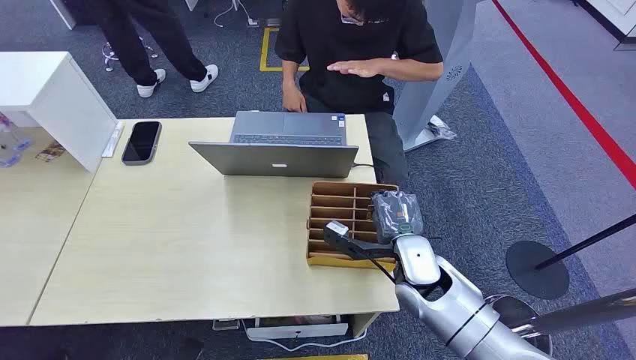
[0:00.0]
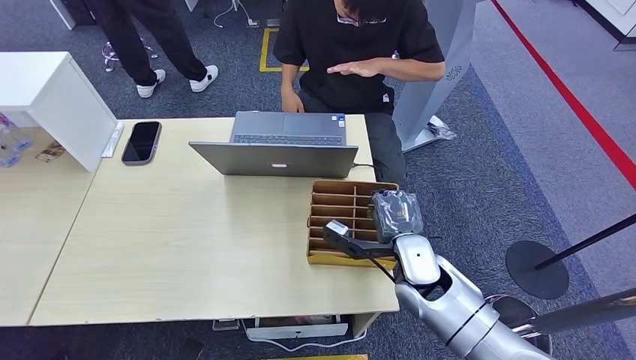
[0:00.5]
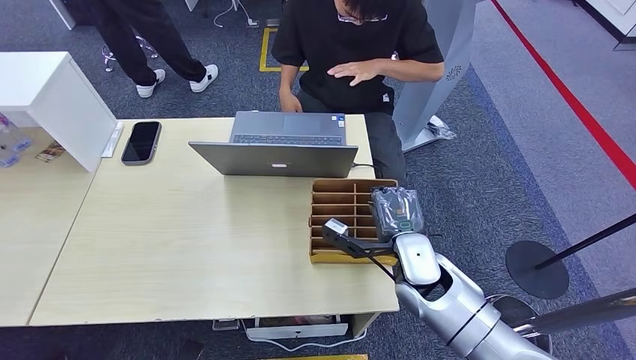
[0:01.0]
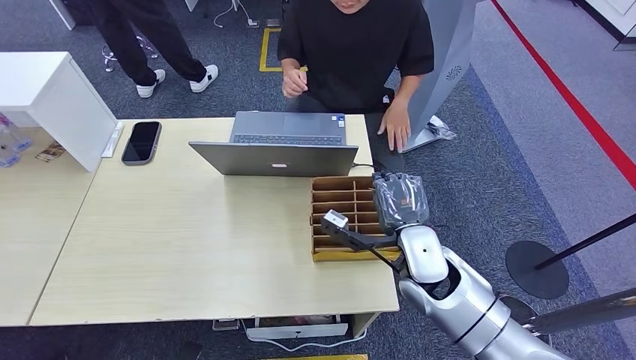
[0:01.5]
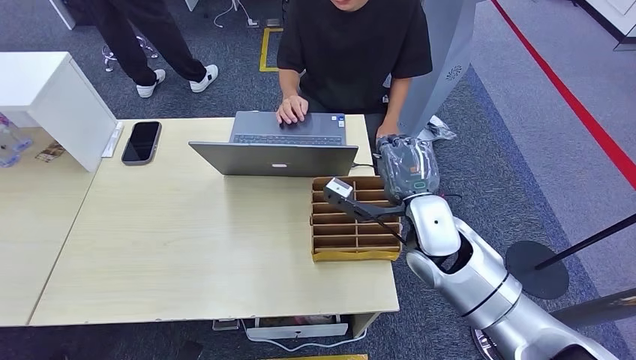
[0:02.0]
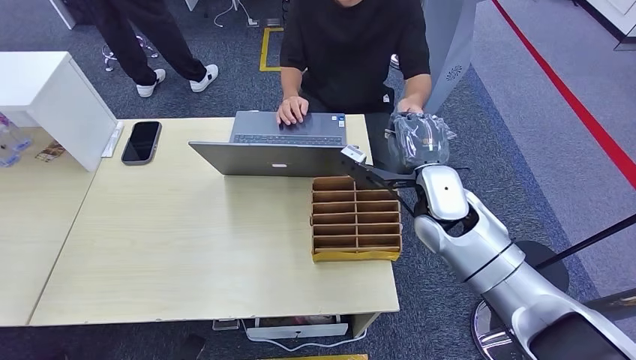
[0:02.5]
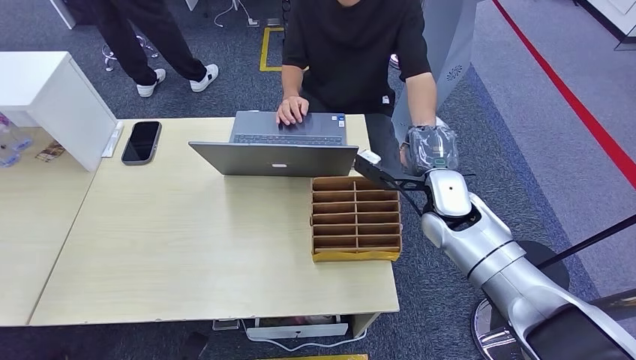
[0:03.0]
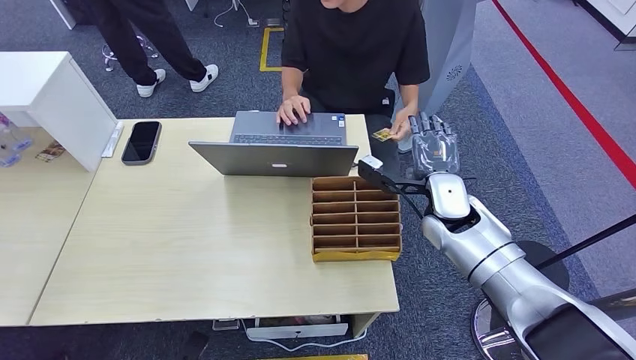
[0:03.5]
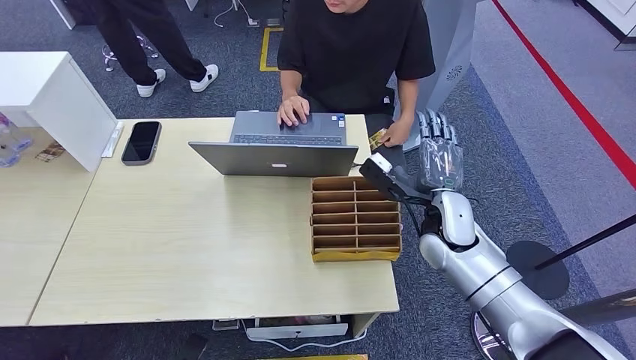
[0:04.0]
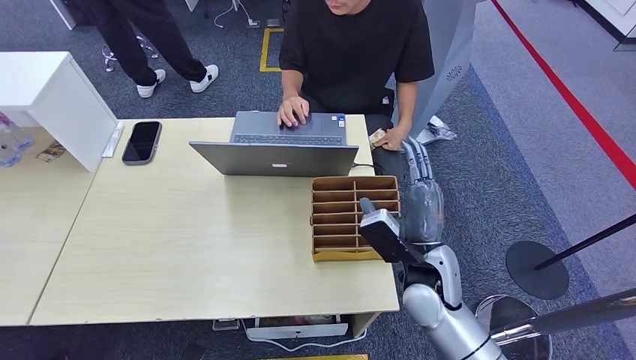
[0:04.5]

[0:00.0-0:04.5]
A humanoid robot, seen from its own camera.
Step, 0:00.0 to 0:02.0: Pick up the key card from the card box.
Step, 0:02.5 to 0:04.5: Hand the key card to the target.
0:02.0 to 0:04.5: The right hand goes roughly 5 cm downward.
